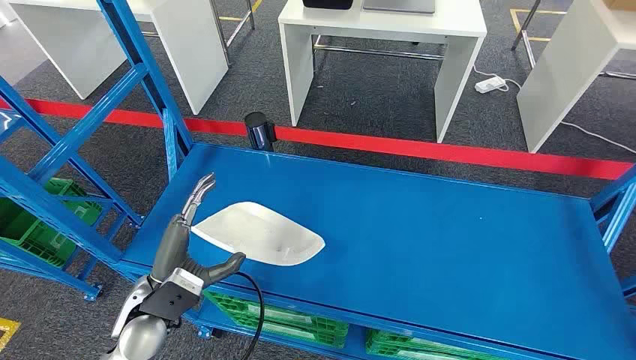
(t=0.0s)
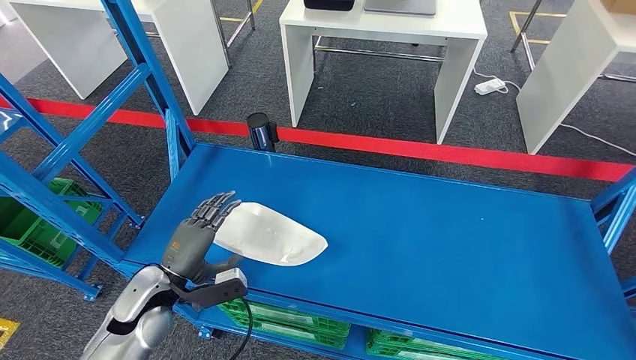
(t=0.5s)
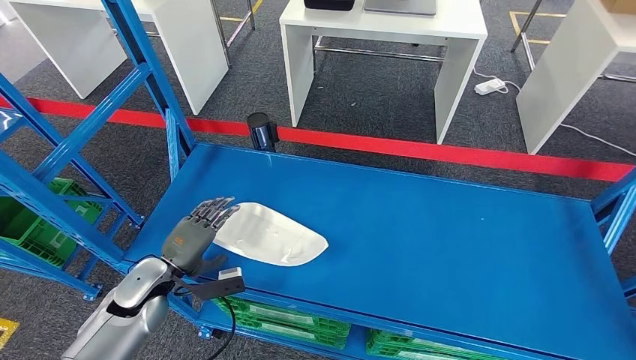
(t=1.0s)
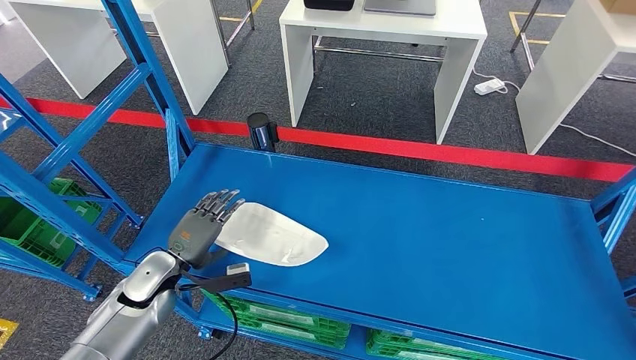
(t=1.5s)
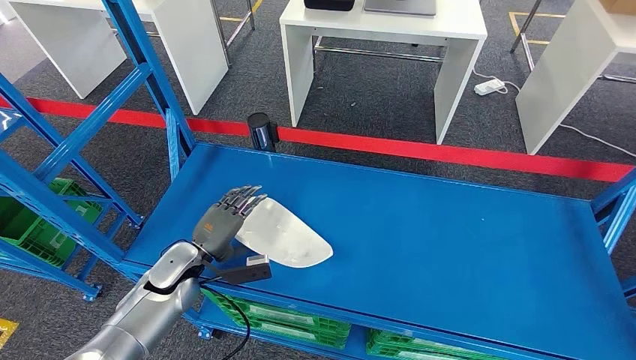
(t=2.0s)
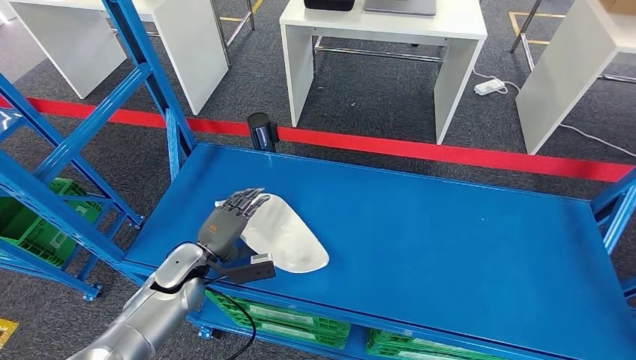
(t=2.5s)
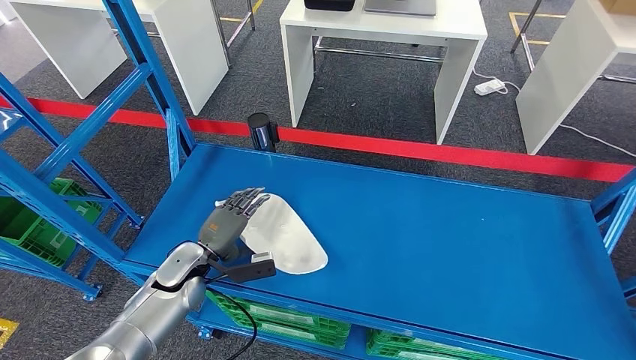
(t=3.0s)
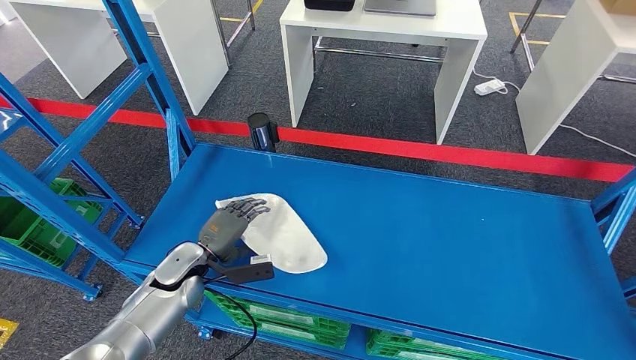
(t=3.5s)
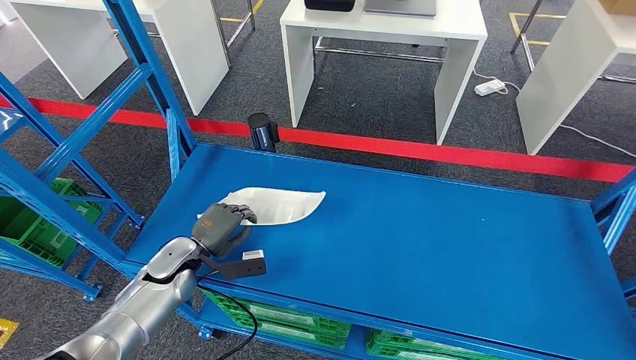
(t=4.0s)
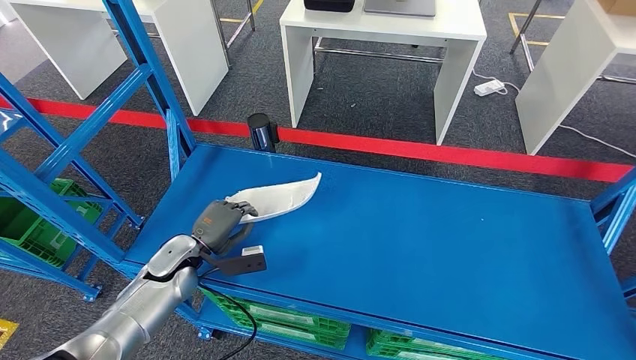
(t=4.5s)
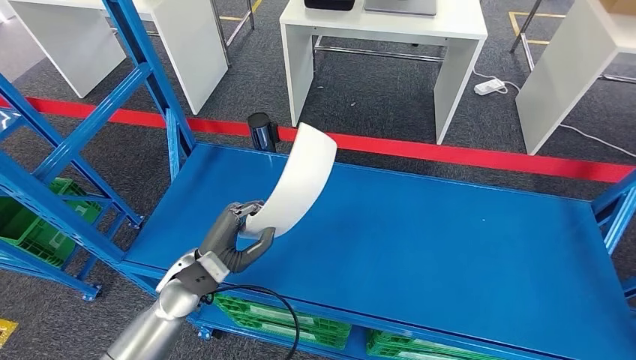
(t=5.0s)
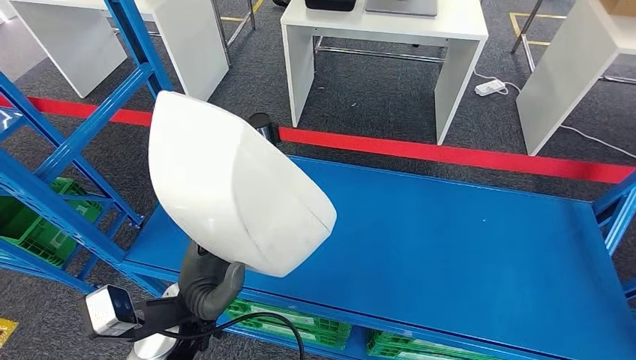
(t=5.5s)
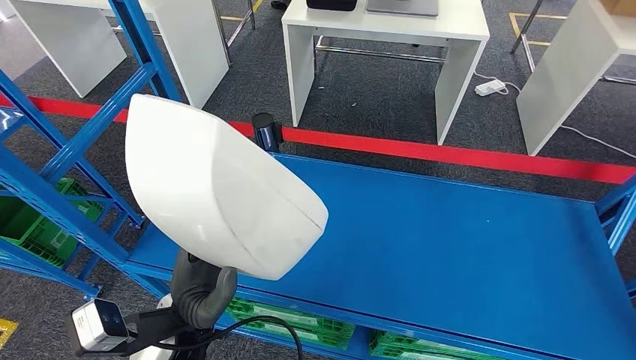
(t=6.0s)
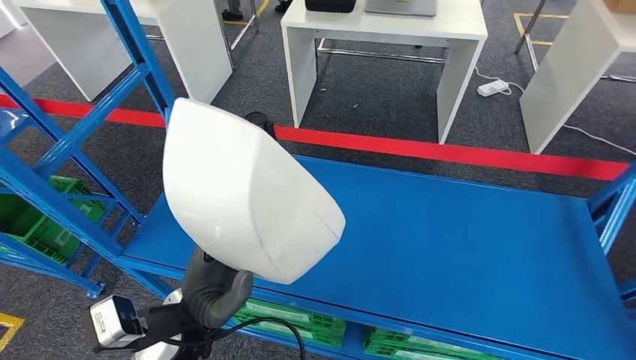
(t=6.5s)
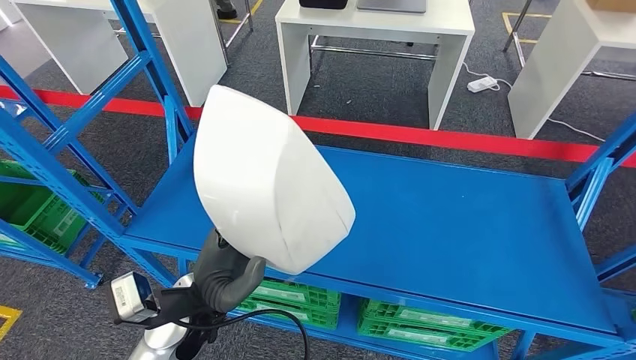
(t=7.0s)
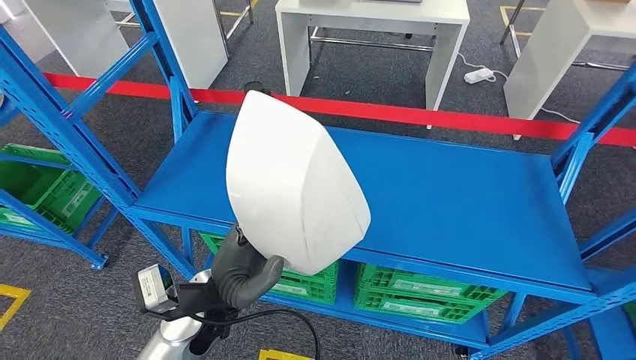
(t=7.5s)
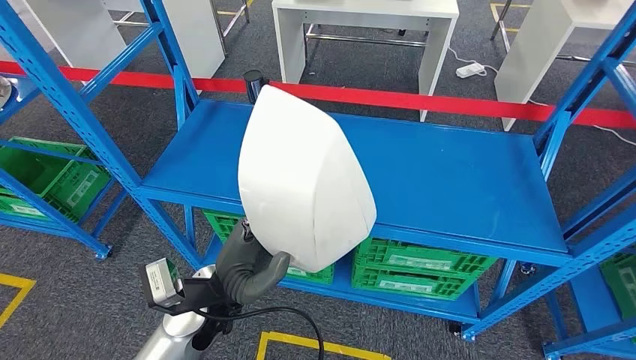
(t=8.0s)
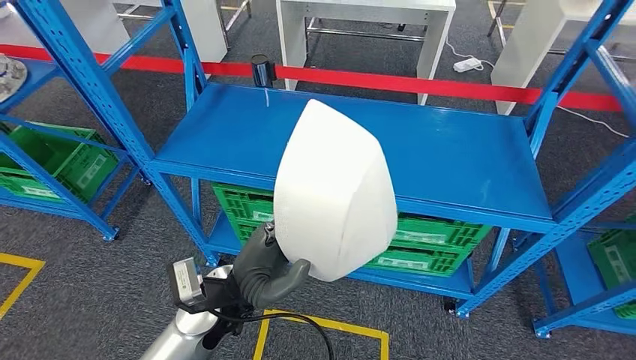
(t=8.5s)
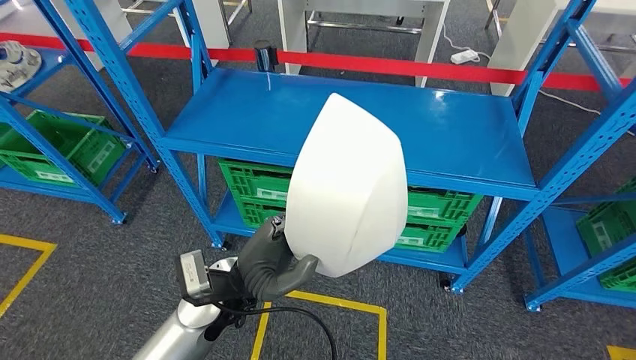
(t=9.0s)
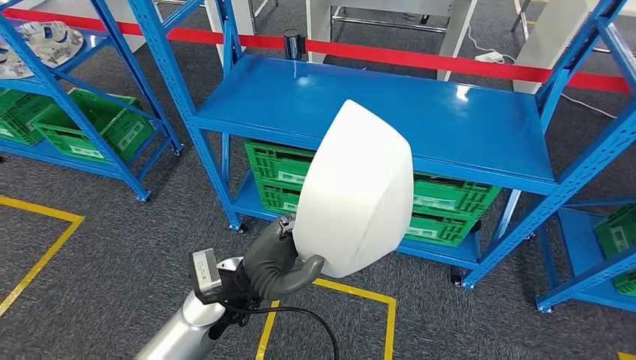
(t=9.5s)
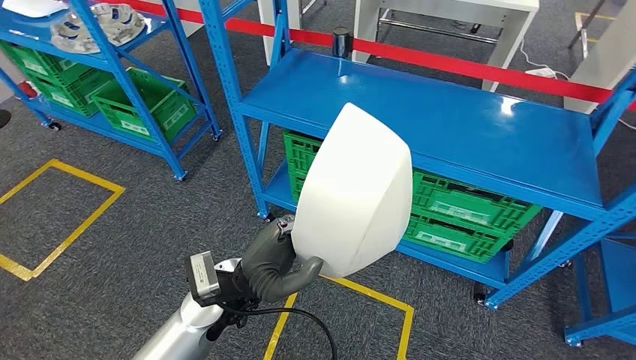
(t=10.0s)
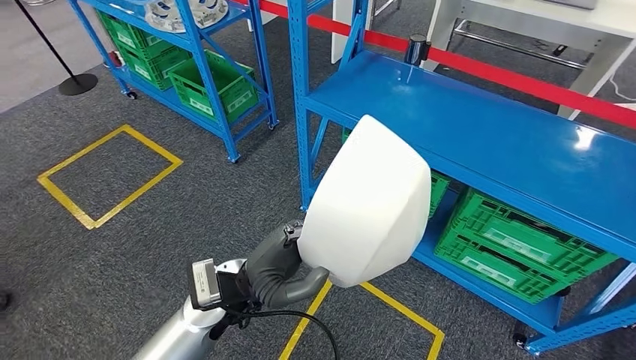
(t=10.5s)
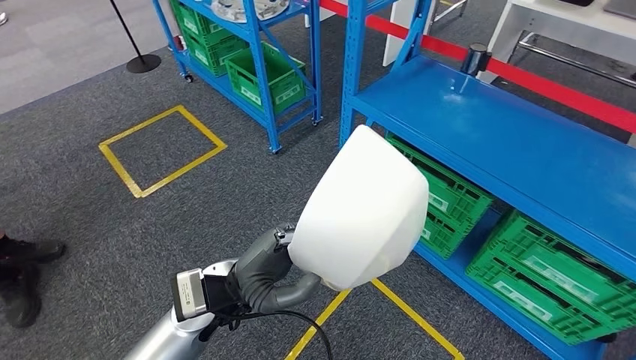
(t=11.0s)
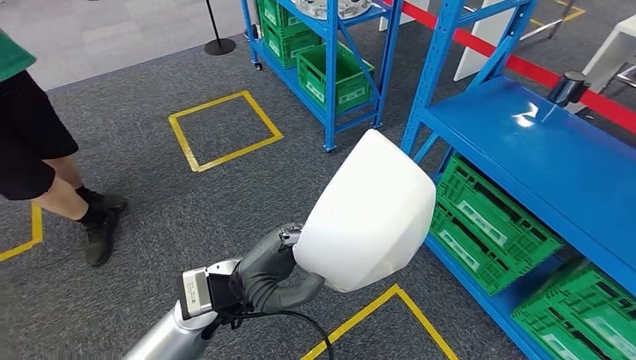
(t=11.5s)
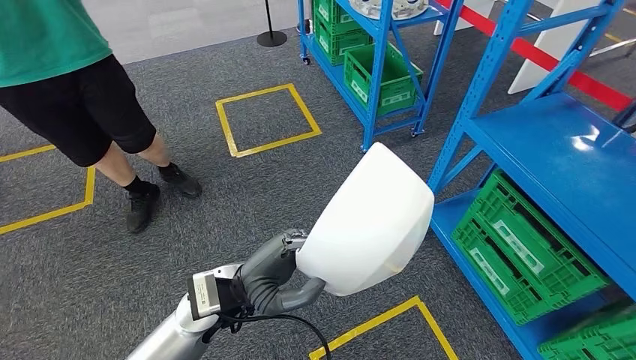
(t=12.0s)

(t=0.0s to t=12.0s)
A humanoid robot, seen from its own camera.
Step, t=0.0s - t=5.0s: Pick up the small parts from the shelf.
t=2.0s - t=4.0s: The hands stay close to where they were, moving slightly.

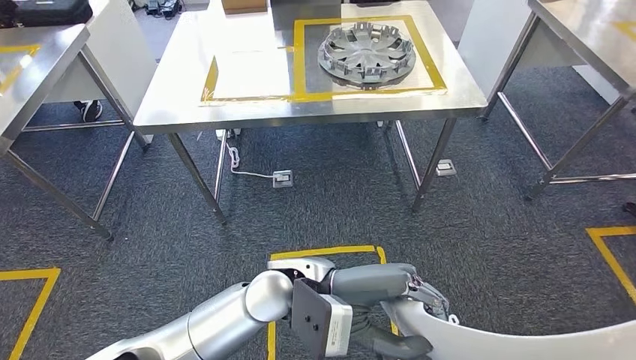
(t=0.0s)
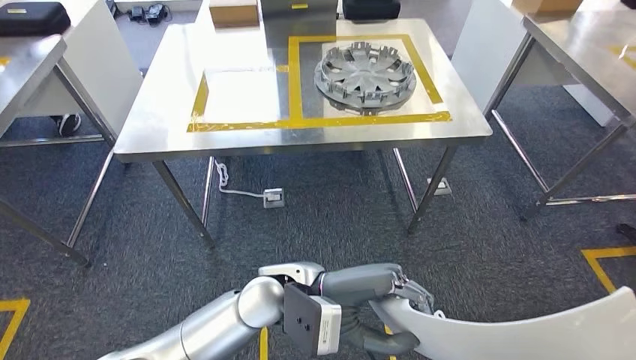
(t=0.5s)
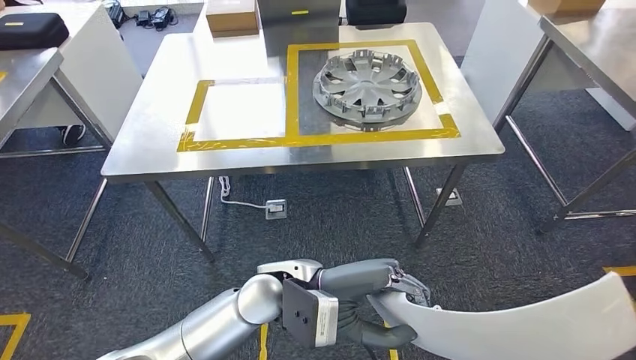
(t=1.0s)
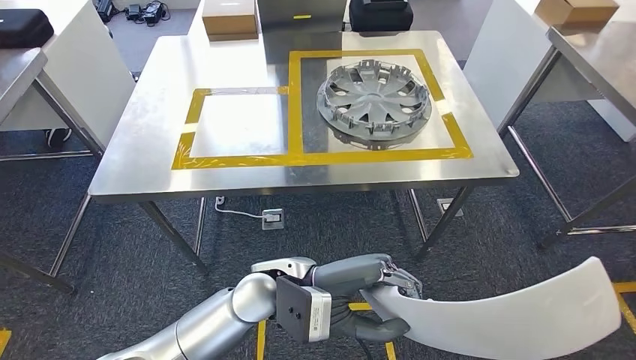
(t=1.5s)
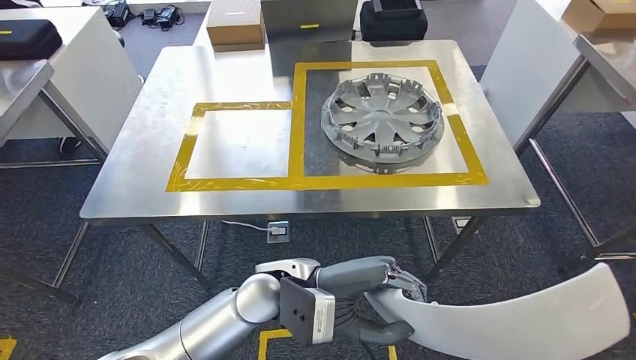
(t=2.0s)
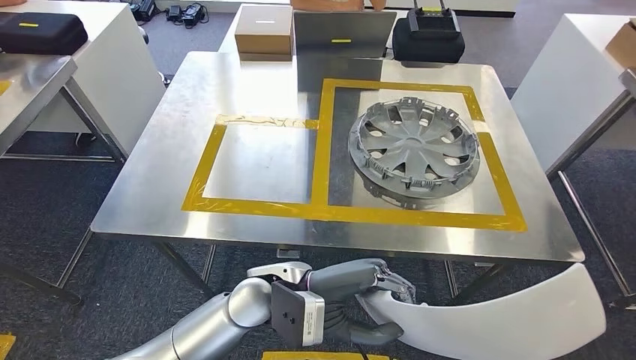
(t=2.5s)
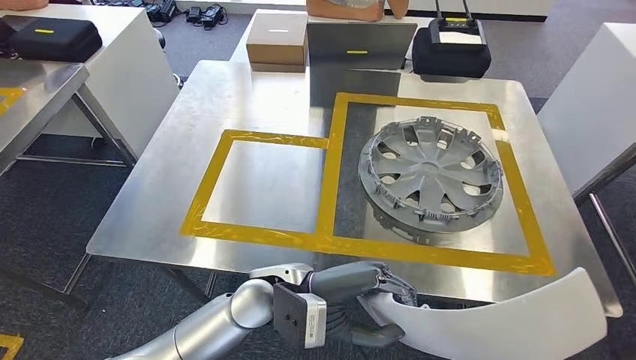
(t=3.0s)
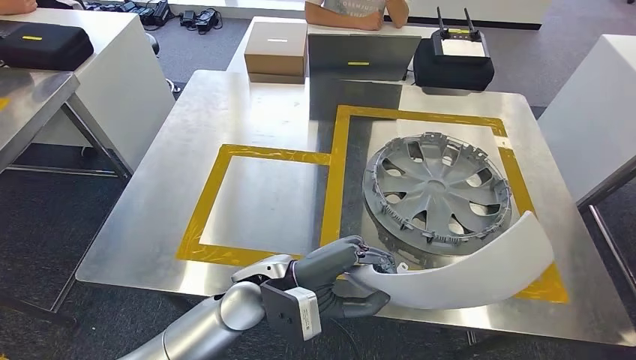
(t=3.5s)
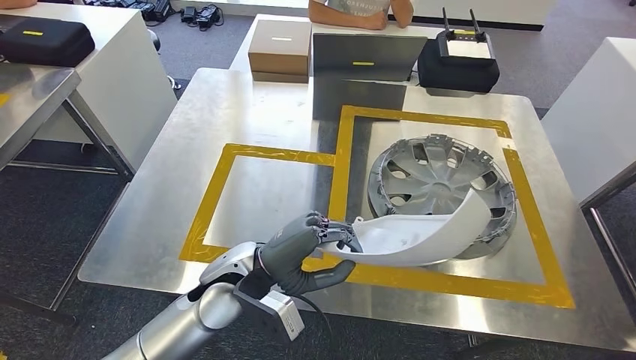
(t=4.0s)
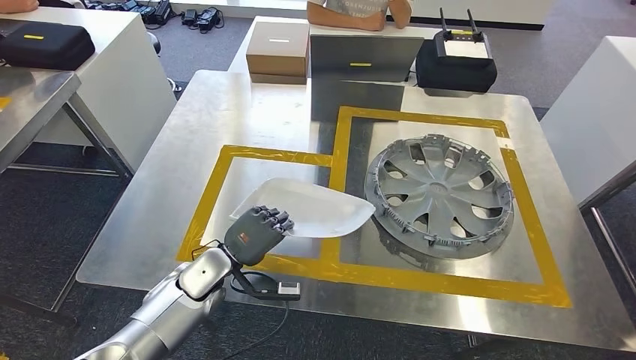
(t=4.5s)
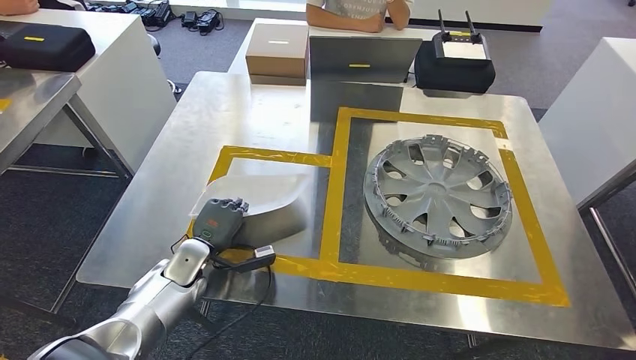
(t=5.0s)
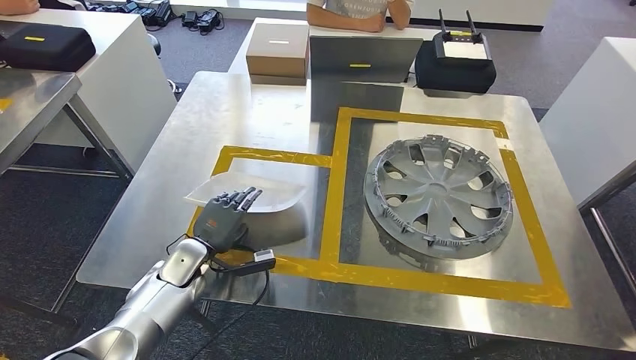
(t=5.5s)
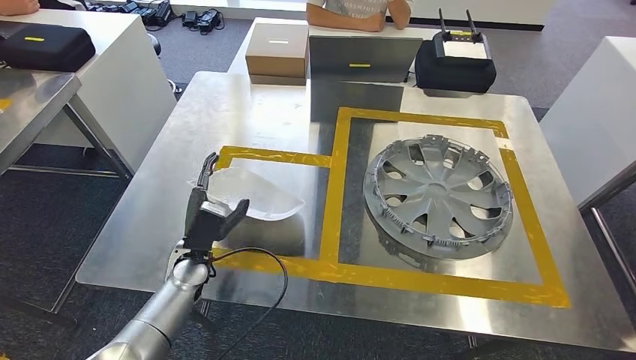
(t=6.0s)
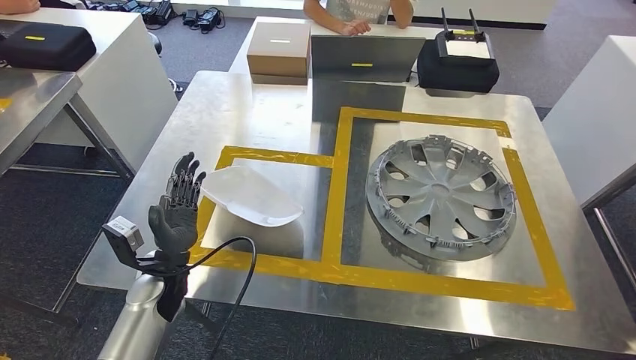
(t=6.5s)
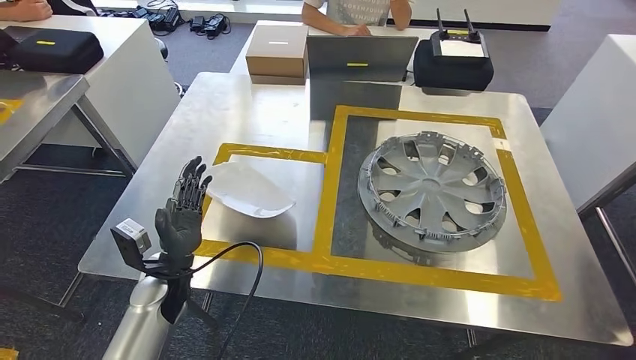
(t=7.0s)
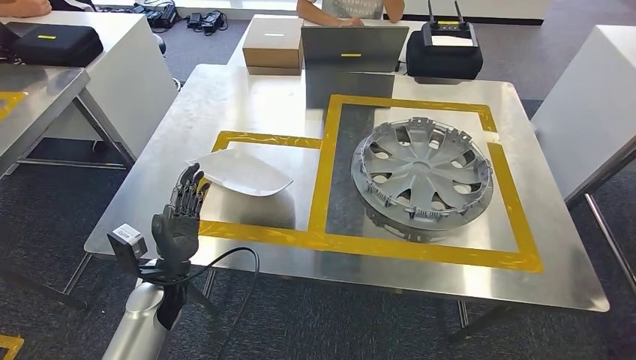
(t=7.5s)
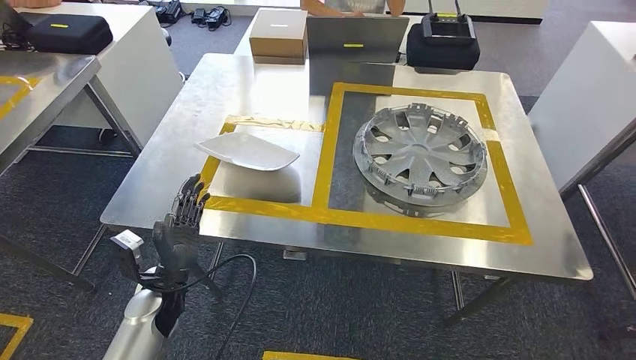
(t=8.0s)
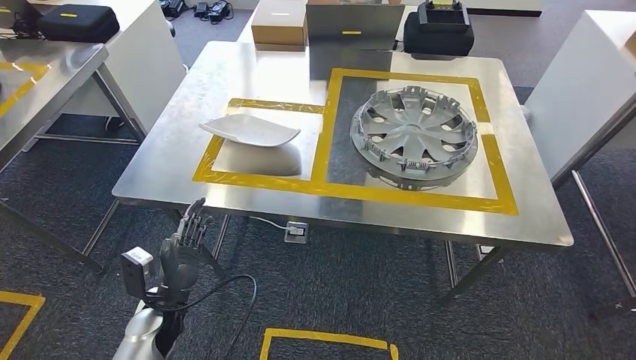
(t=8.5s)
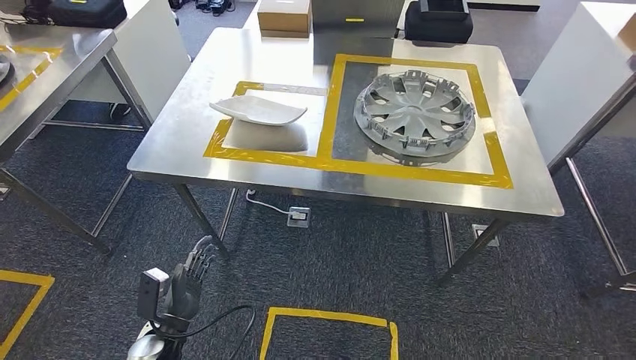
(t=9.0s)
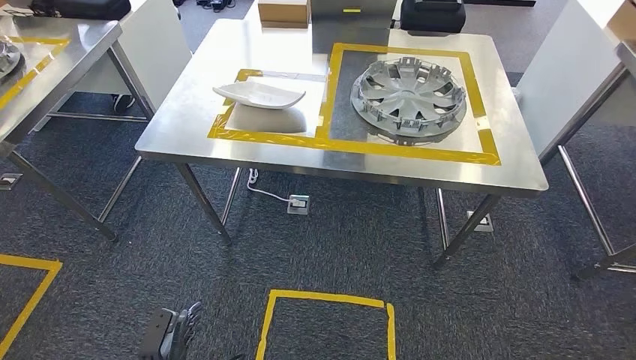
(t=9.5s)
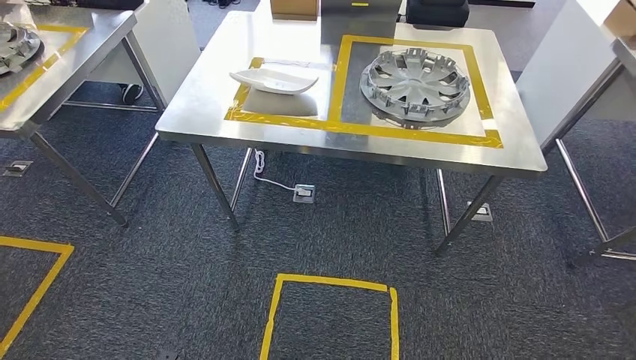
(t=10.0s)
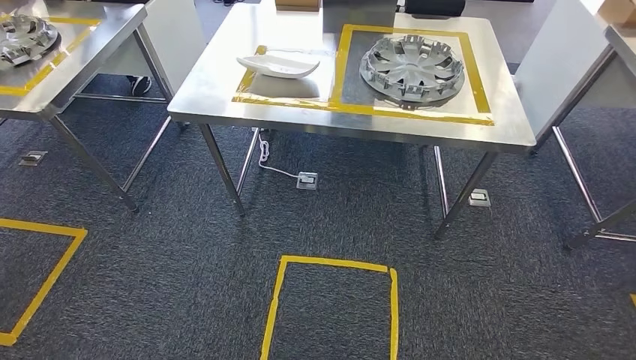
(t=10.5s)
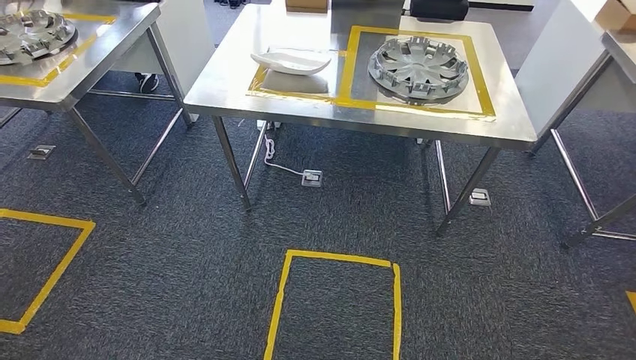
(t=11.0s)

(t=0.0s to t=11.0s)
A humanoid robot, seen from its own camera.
Step, t=0.0s - t=3.5s: Move the small parts to the workbench.
Step, t=4.0s - t=6.0s: Insert the small parts into the corresponding slots on the workbench.
